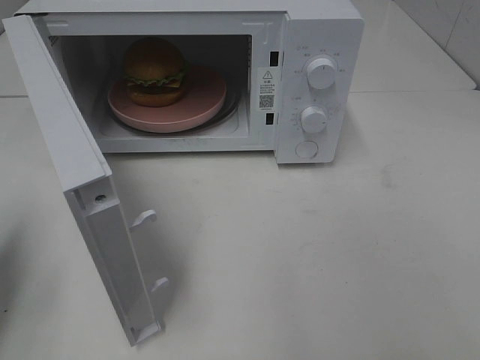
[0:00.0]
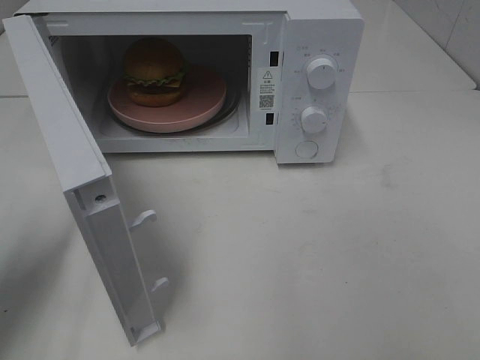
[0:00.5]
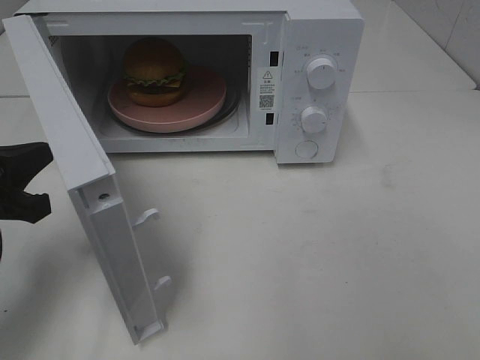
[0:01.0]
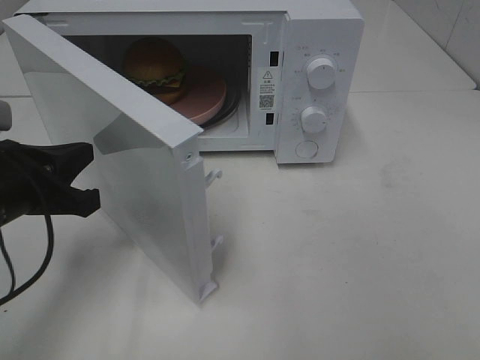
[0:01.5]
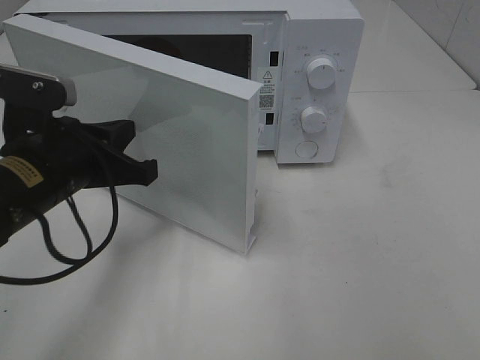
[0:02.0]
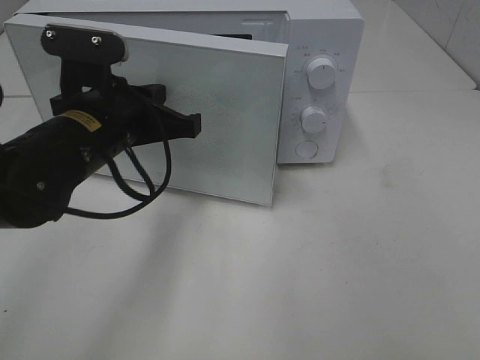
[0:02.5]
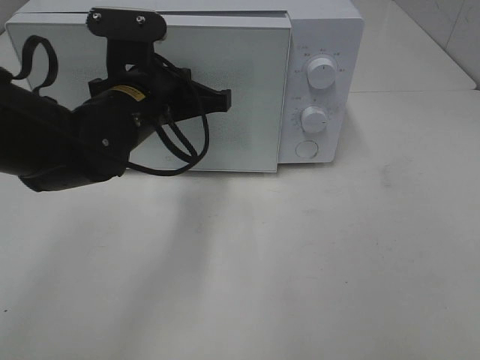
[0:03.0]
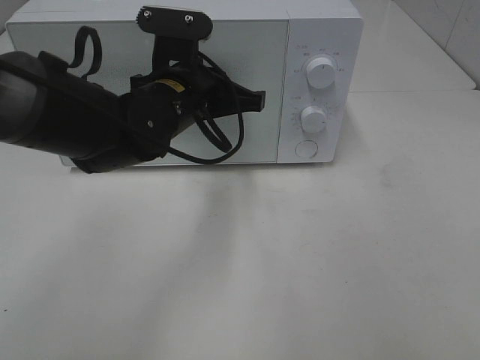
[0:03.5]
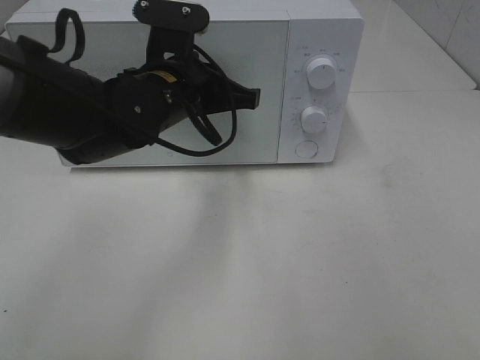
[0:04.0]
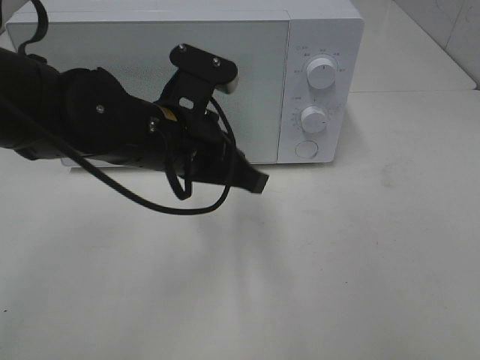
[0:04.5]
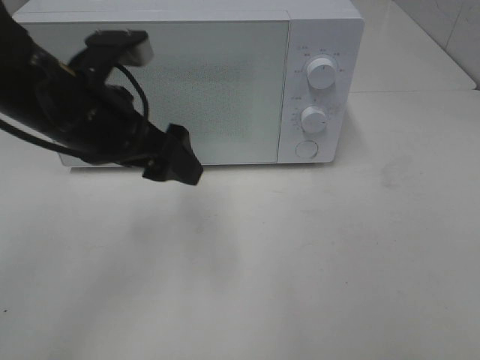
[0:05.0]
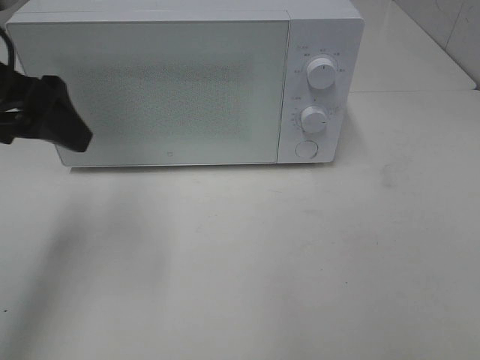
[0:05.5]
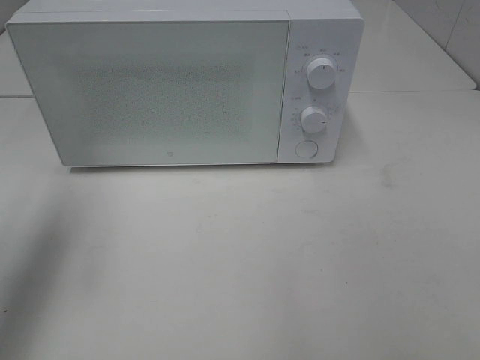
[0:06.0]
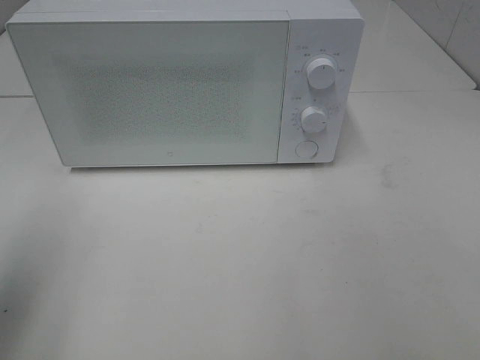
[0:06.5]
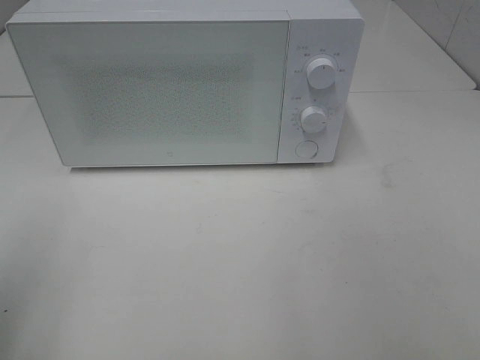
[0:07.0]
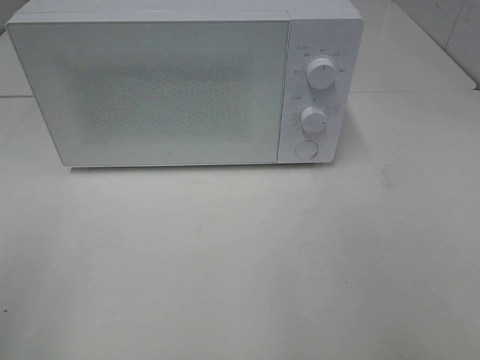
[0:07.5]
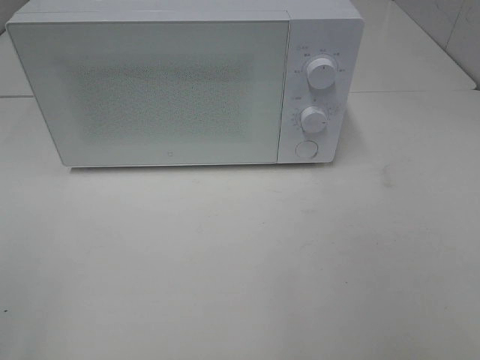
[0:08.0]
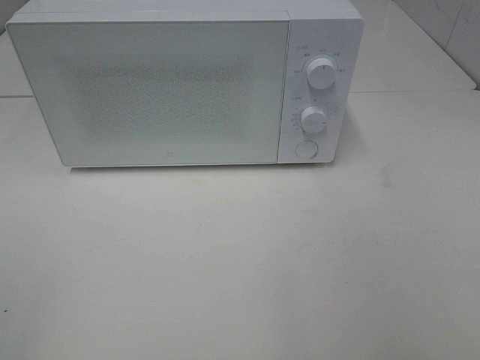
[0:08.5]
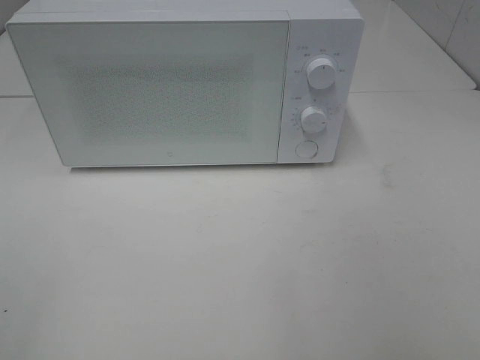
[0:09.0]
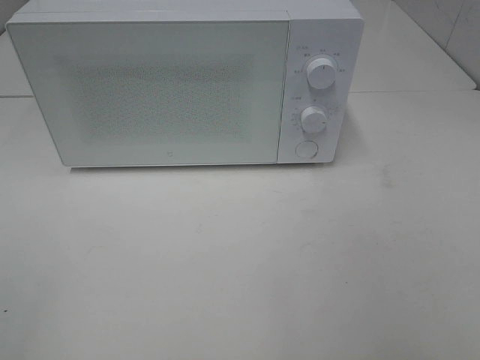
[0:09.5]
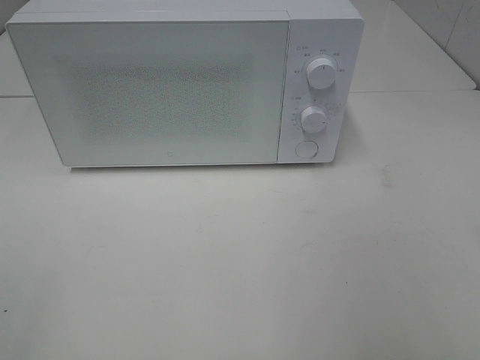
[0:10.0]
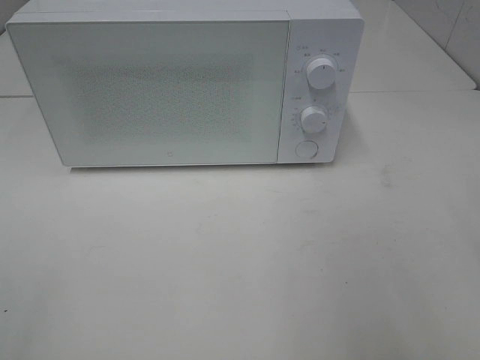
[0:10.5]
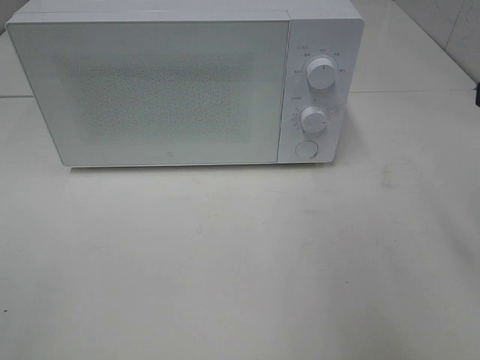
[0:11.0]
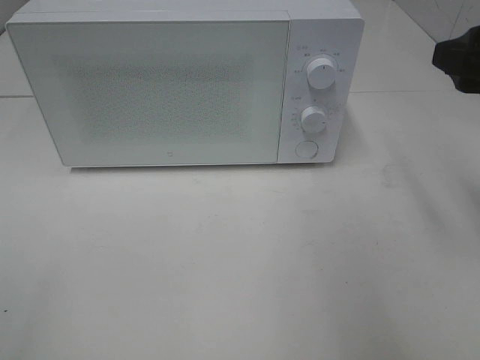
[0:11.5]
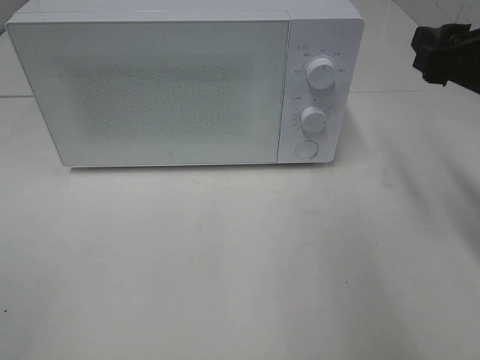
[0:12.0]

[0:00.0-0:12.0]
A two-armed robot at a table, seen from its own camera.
Task of the whole recording: Heat the burger.
Step, 0:00.0 to 0:04.0: Left hand: close the microwave door.
0:00.0 to 0:02.0: The left gripper heads to the right and forward, covering roughly 15 cm.
0:02.0 to 0:04.0: The left gripper goes roughly 15 cm to the right and forward.
0:04.0 to 0:06.0: The left gripper is displaced to the left, upward and backward by roughly 25 cm, and opens up.
0:06.0 to 0:08.0: The left gripper moves backward, some 20 cm.
0:10.0 to 0:12.0: The right gripper is displaced forward by about 20 cm.

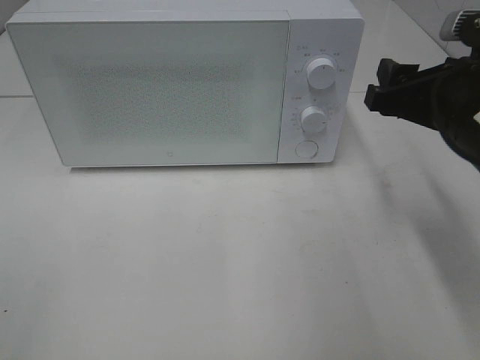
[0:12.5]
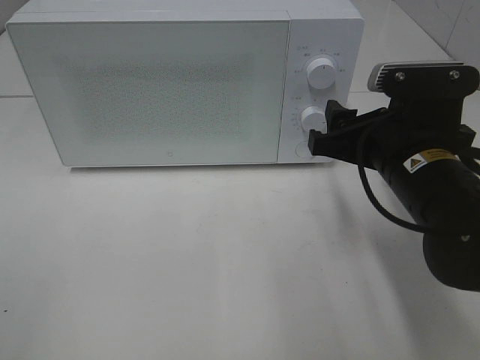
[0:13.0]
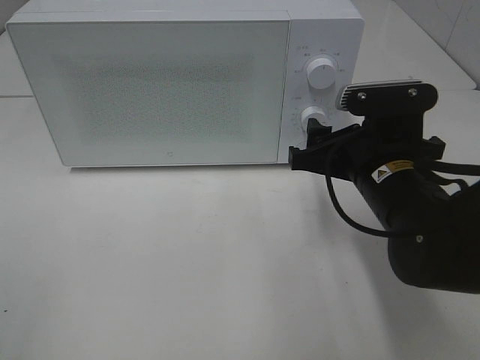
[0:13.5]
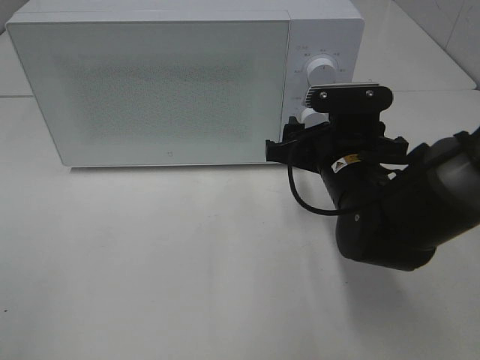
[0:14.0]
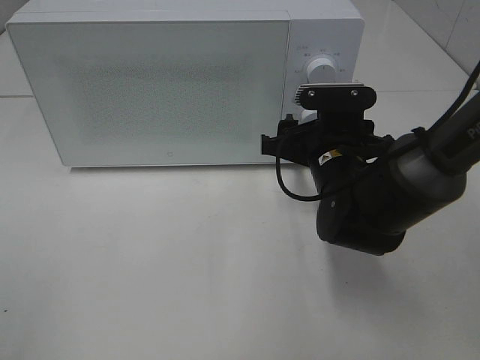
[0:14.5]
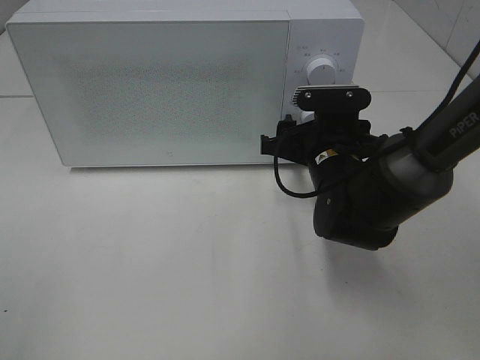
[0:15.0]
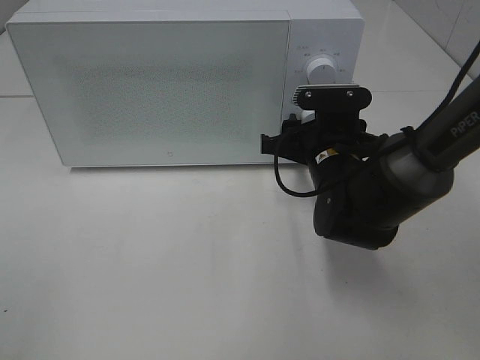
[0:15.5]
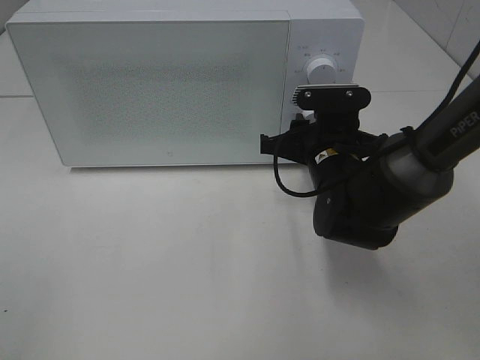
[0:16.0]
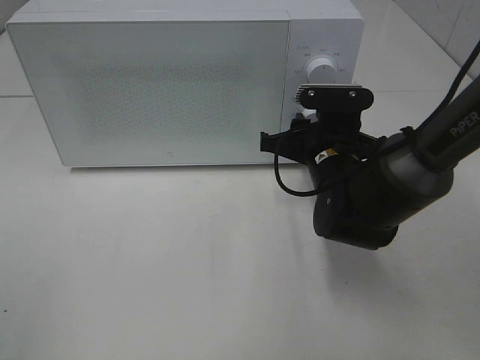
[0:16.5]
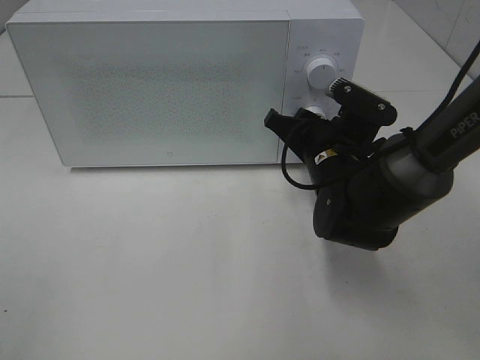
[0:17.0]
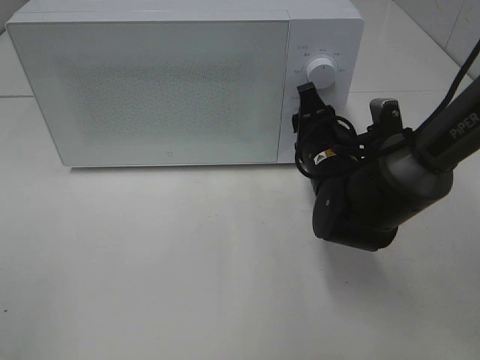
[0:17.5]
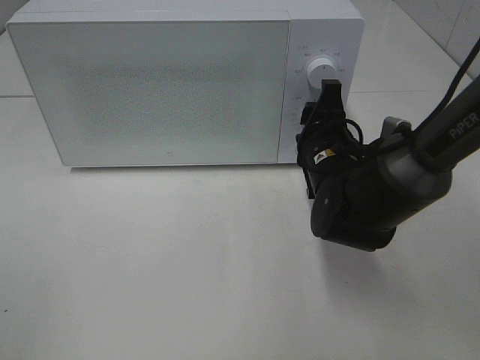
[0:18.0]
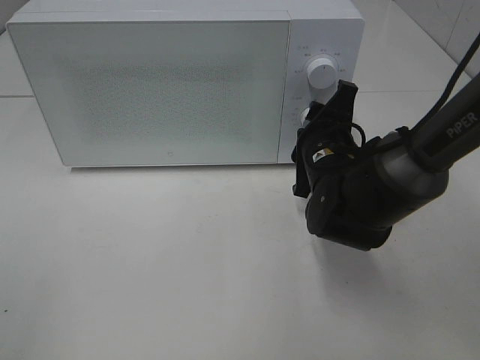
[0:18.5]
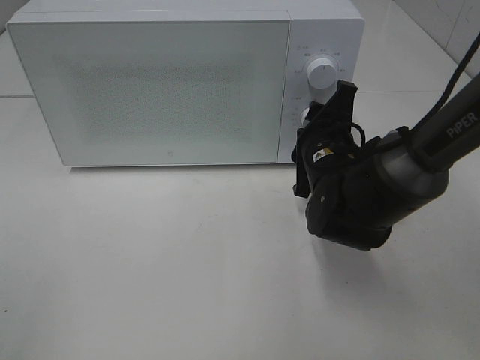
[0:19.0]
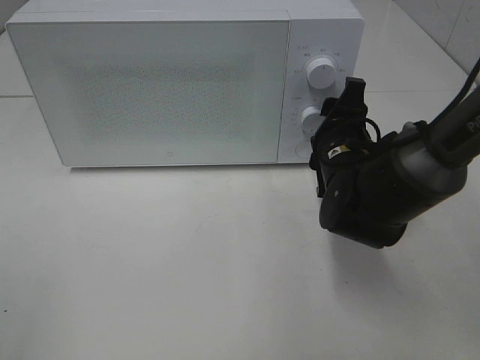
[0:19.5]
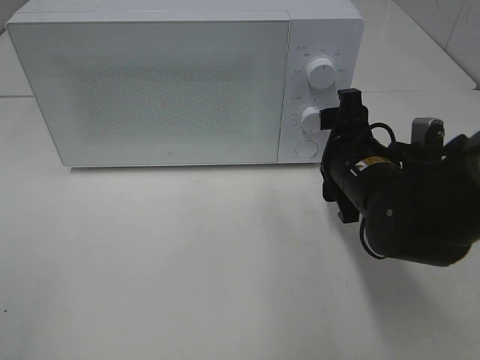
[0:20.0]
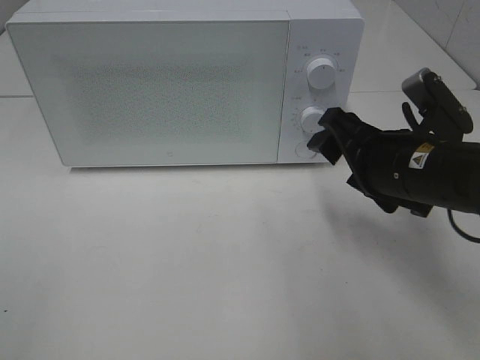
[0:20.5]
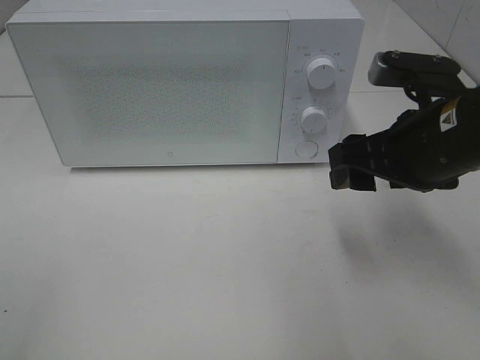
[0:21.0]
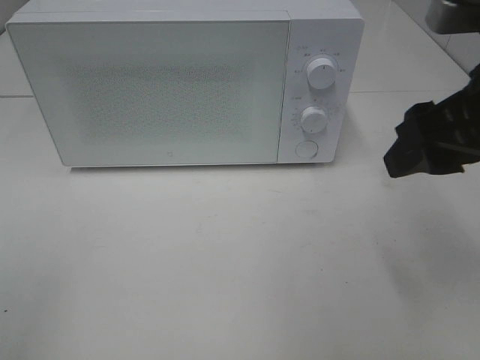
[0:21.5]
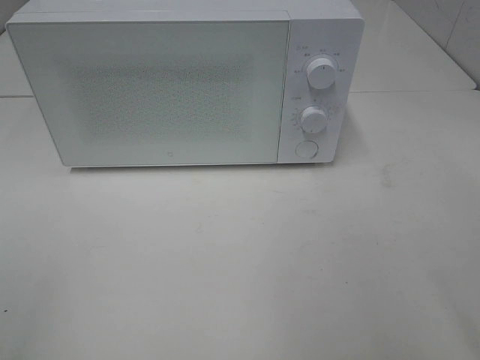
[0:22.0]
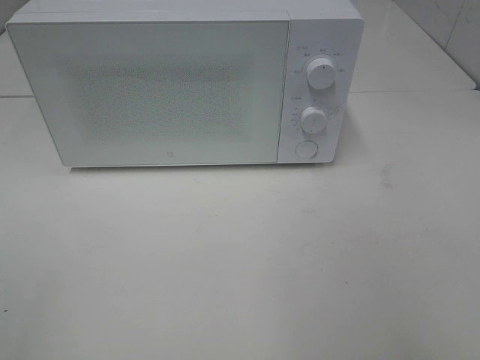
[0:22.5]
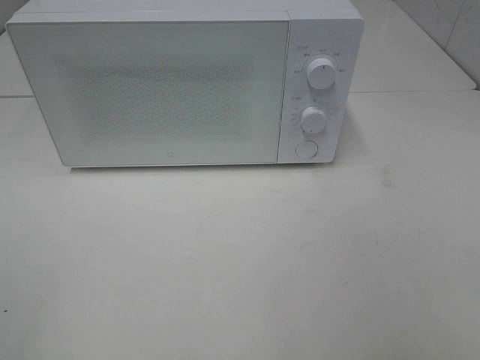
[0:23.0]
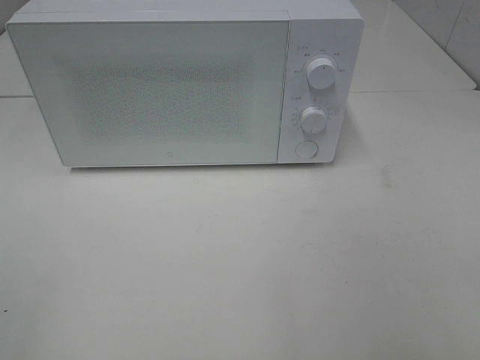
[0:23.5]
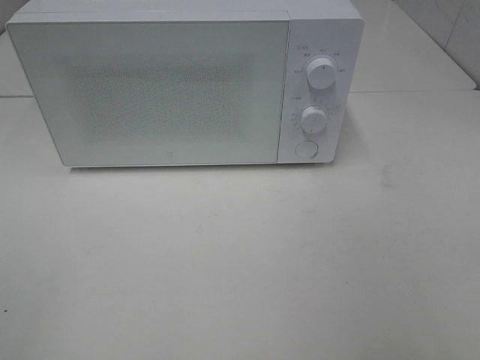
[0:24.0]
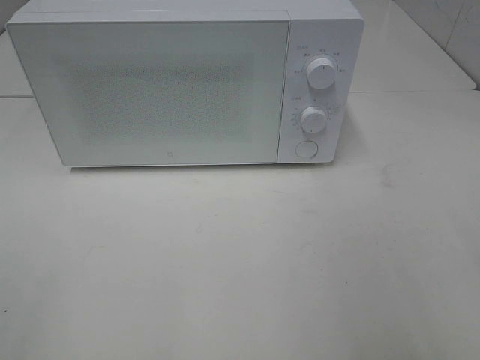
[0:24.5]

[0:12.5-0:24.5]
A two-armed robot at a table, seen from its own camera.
Task of the whole recording: Heat the burger.
Step, 0:12.5 to 0:19.5: Right hand: twist timer button.
0:12.5 to 0:14.5: The right gripper heads downward, to the left and forward, covering approximately 15 cm.
0:14.5 to 0:16.5: Neither gripper changes place.
0:18.5 to 0:20.5: The right gripper shifts some 10 cm backward, upward and to the right.
0:20.5 to 0:22.5: The right gripper moves backward, upward and to the right, about 30 cm.

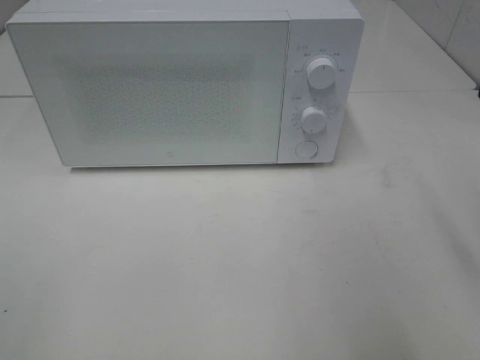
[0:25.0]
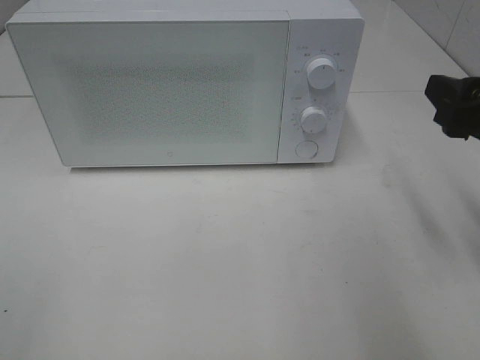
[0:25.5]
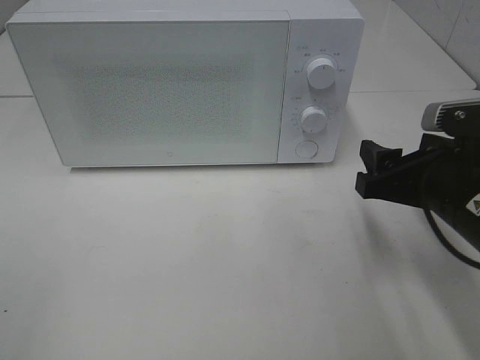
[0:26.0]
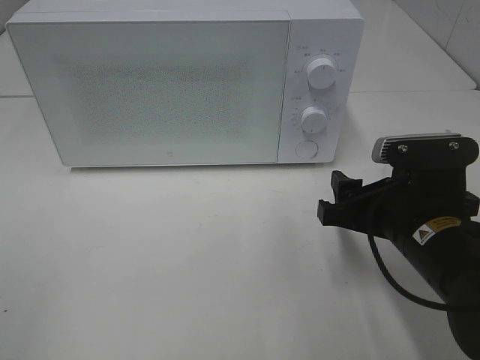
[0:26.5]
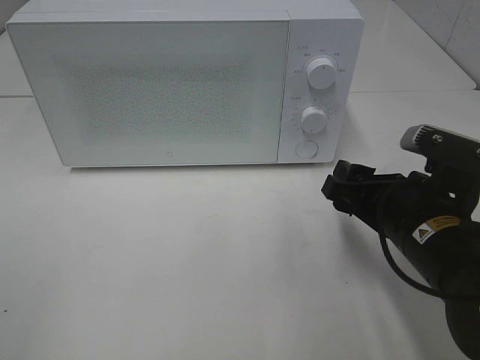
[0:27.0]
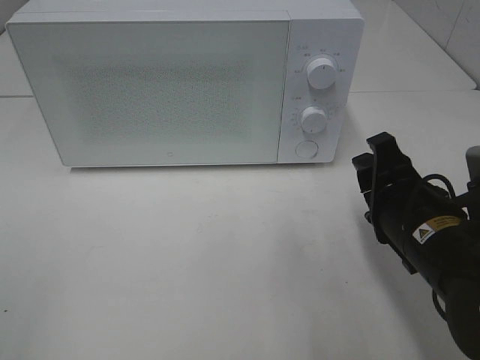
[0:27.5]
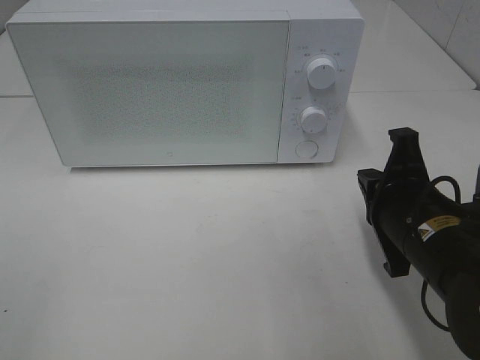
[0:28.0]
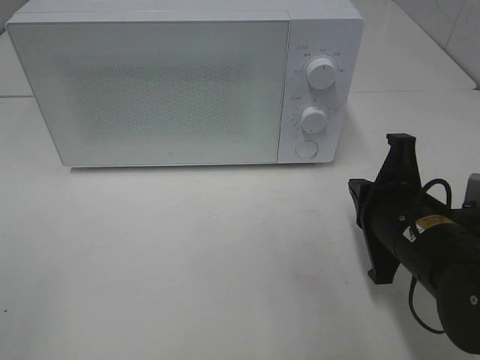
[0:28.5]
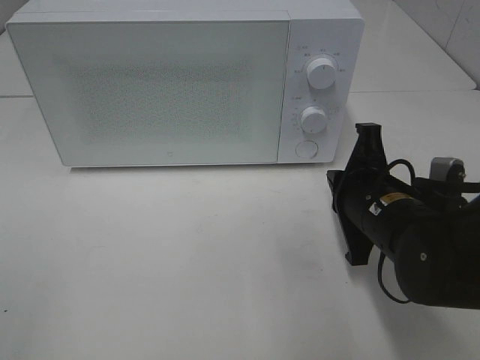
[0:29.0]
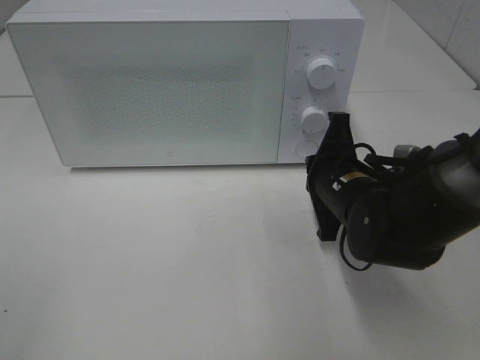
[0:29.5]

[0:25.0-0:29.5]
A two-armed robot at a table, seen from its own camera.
Task of the whole recording: Heat the burger.
0:25.0 to 0:27.0: The right gripper travels downward and to the left by roughly 15 cm.
0:27.0 to 0:29.5: The right gripper moves forward, about 10 cm, and closes its fingers.
